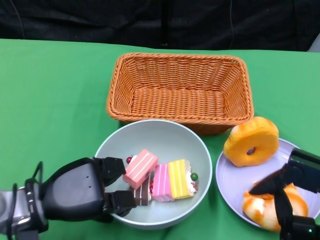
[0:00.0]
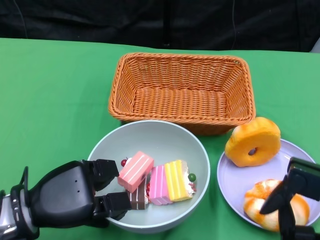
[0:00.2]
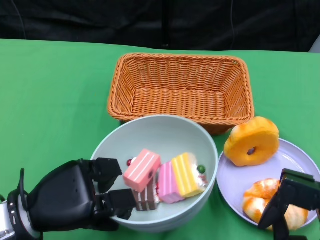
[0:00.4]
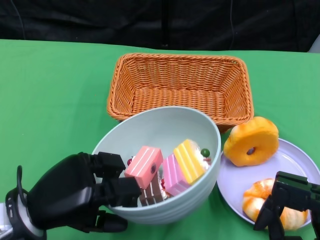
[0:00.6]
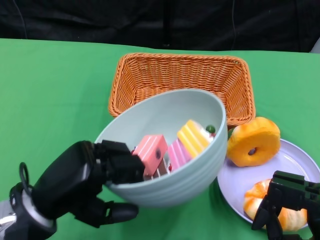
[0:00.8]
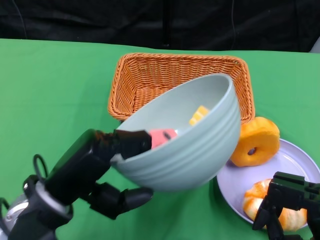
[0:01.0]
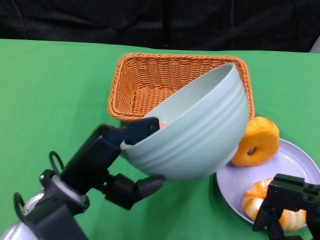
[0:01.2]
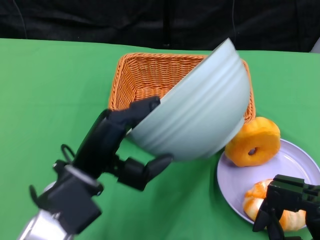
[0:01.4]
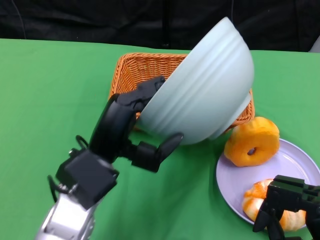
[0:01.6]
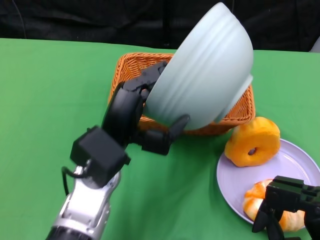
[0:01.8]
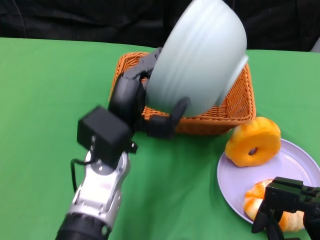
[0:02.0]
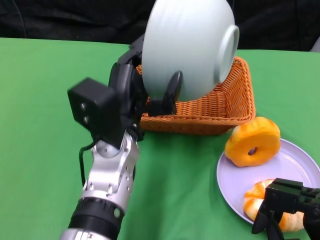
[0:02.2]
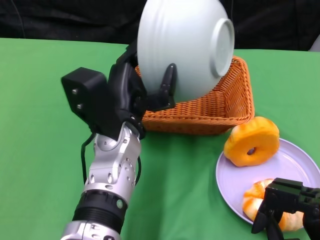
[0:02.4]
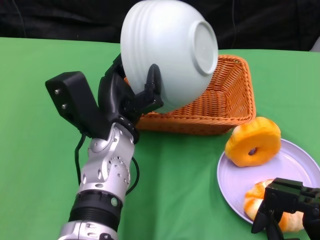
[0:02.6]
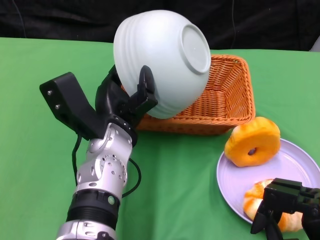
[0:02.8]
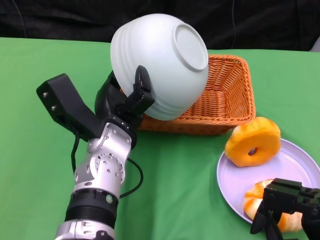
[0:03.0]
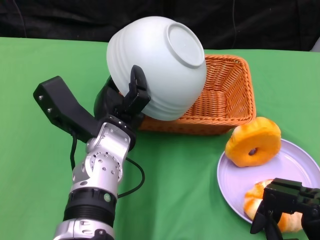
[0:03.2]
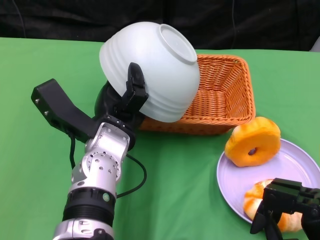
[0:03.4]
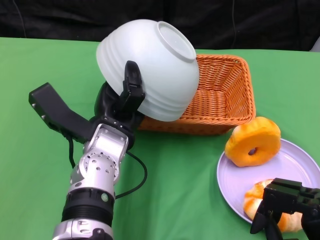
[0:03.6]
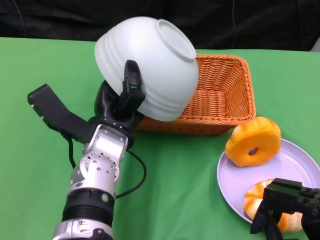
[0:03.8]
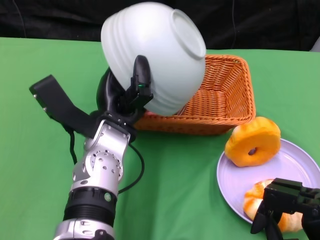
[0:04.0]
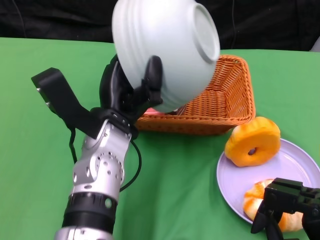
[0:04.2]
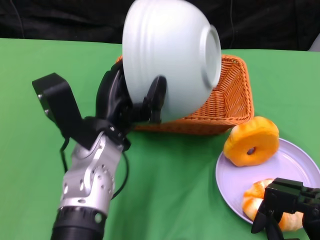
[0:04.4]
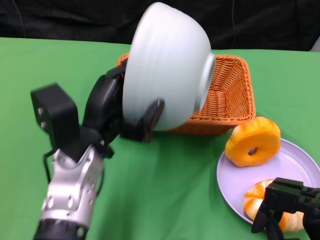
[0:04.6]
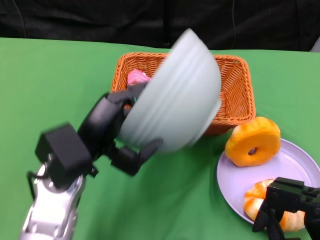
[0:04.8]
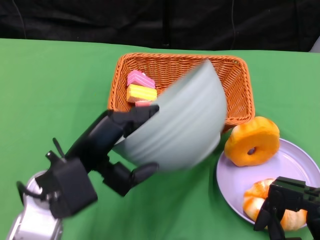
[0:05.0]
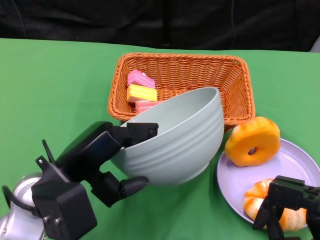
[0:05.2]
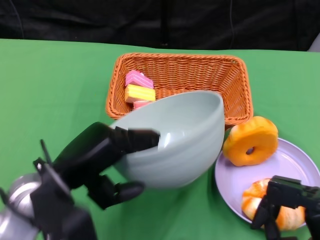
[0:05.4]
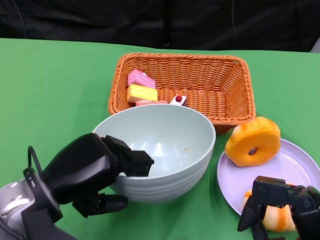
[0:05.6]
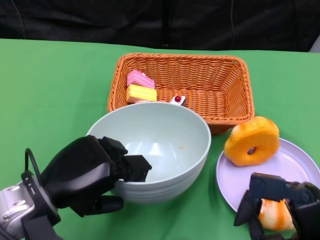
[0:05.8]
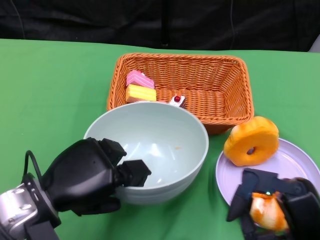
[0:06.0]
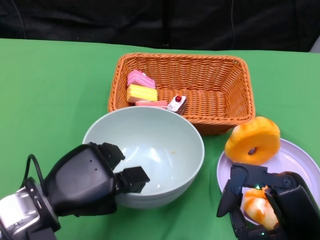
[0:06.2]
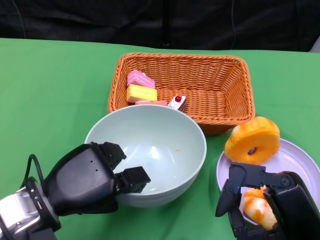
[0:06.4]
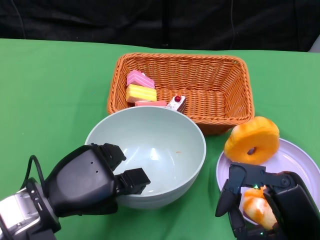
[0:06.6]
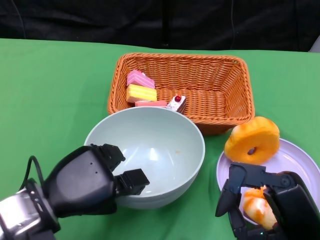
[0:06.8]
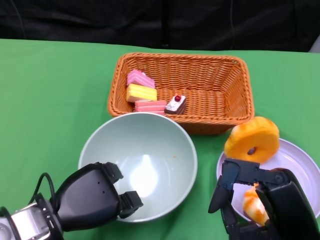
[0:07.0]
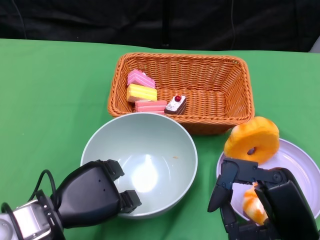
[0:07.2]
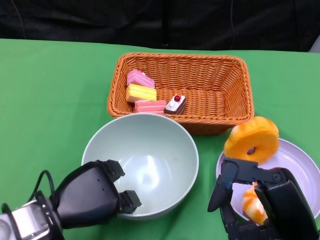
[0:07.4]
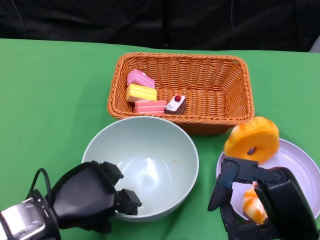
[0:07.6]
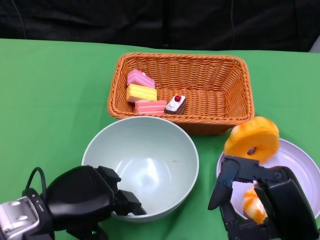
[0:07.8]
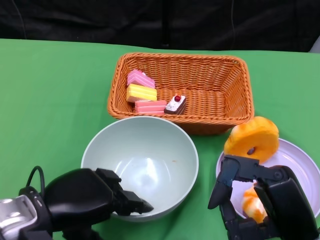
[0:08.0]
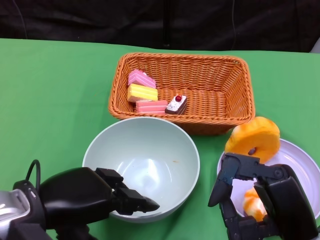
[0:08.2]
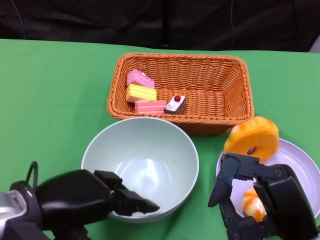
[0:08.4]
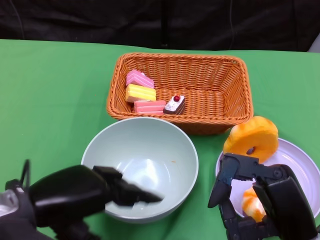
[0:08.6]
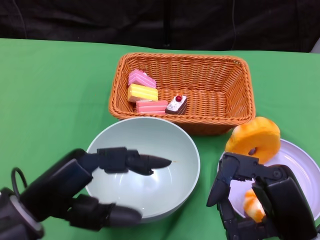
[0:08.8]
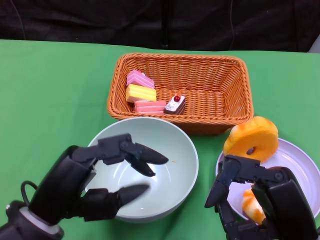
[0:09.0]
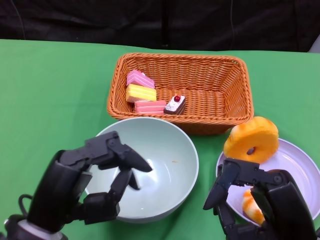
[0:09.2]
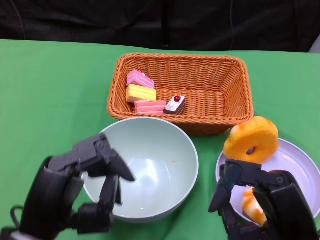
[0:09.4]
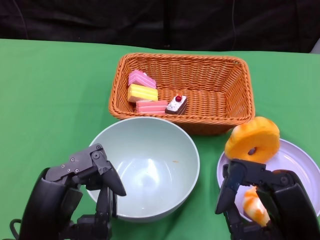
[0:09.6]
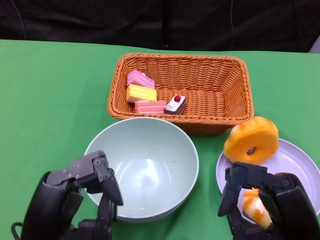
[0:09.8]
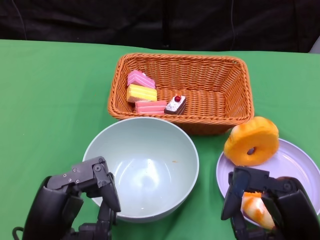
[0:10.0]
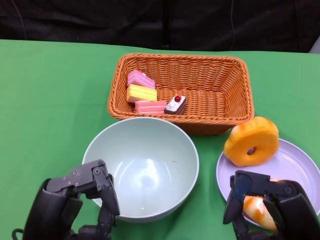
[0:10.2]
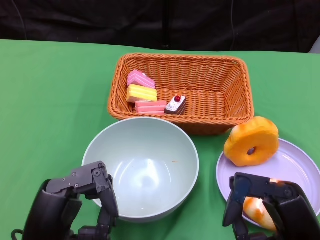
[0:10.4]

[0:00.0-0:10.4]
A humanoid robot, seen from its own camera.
Step, 0:00.2 to 0:03.6: Pour the cake into the basket with the left gripper.
Step, 0:03.8 to 0:08.0: Place the bowl on the table with the left gripper.
0:00.0 to 0:01.4: The left hand goes roughly 10 cm to the right and upward.
0:01.4 to 0:03.0: The left hand shifts some 10 cm forward and to the right.
0:04.4 to 0:06.0: The left hand travels to the left and backward by some 10 cm.
0:07.4 to 0:09.0: The left hand heads upward, covering some 5 cm.
0:09.0 to 0:10.4: The left hand moves about 5 cm.

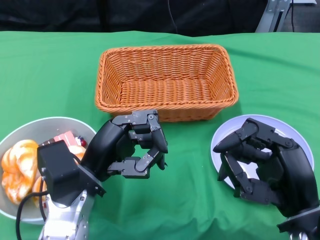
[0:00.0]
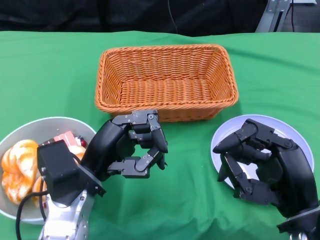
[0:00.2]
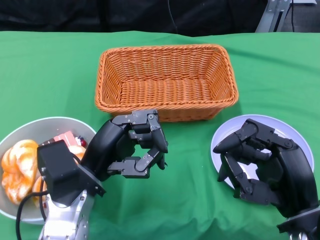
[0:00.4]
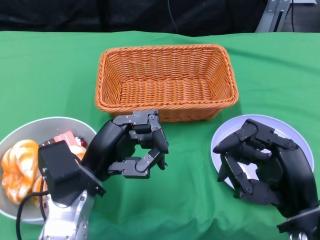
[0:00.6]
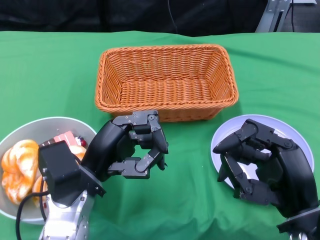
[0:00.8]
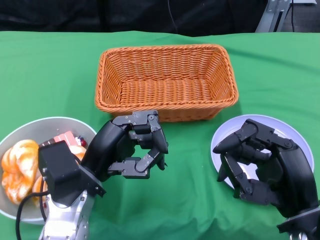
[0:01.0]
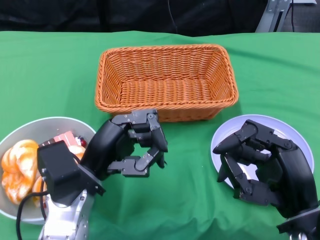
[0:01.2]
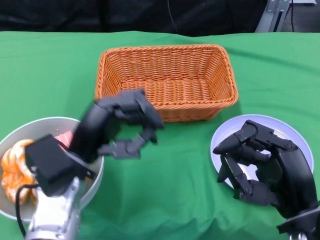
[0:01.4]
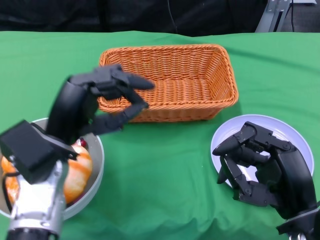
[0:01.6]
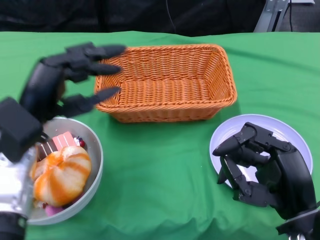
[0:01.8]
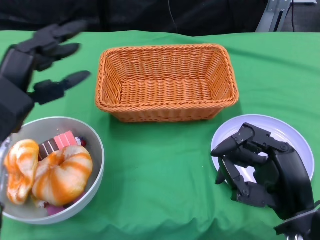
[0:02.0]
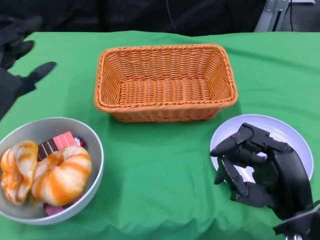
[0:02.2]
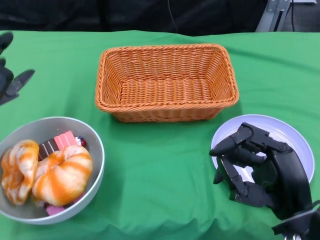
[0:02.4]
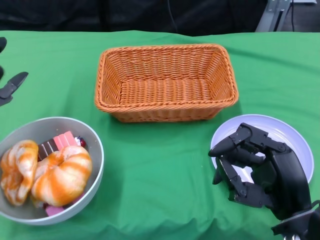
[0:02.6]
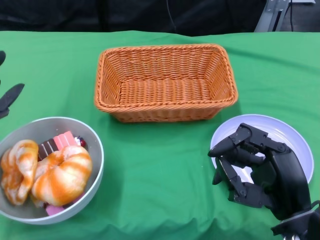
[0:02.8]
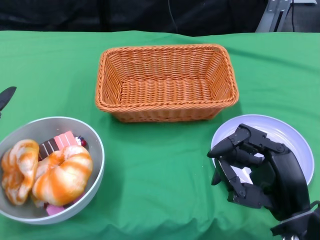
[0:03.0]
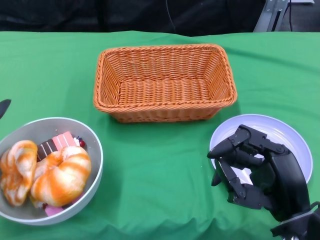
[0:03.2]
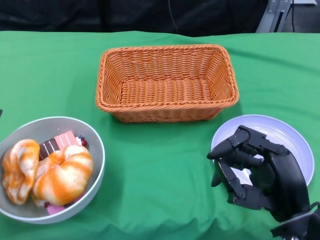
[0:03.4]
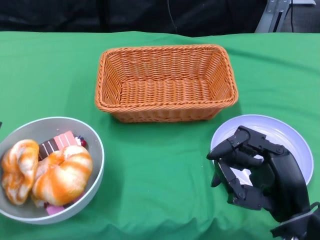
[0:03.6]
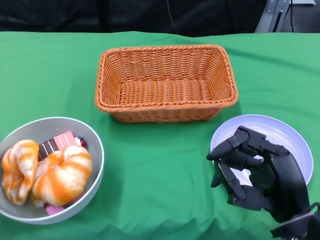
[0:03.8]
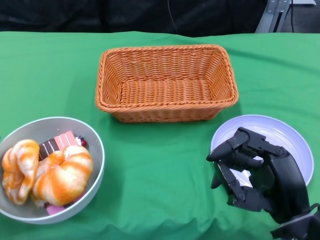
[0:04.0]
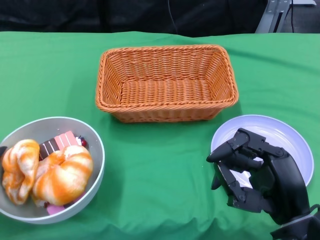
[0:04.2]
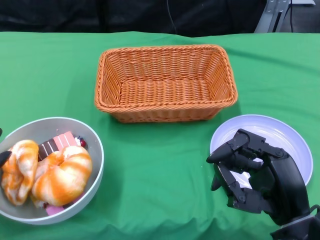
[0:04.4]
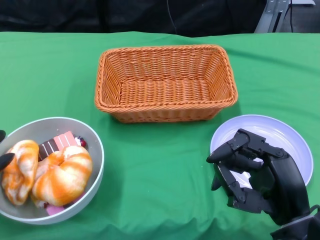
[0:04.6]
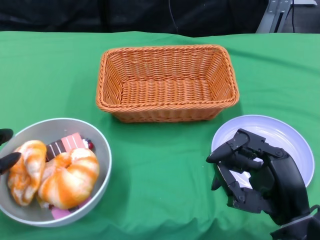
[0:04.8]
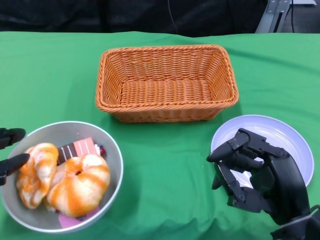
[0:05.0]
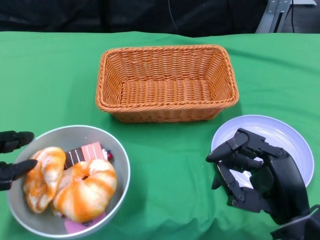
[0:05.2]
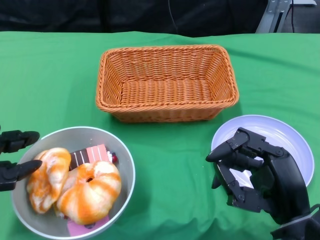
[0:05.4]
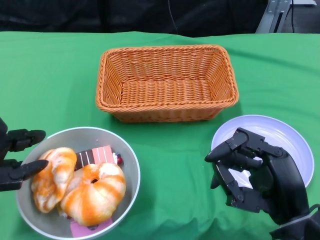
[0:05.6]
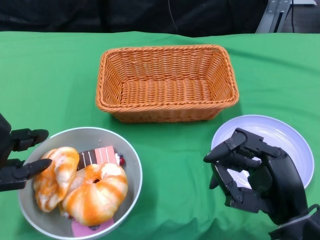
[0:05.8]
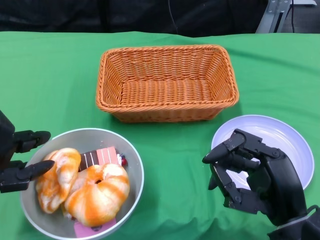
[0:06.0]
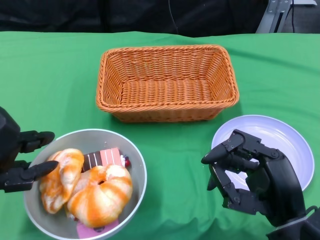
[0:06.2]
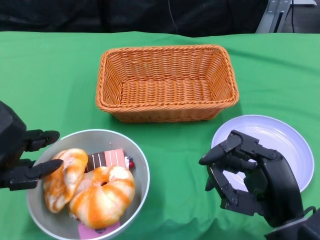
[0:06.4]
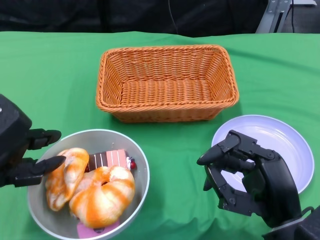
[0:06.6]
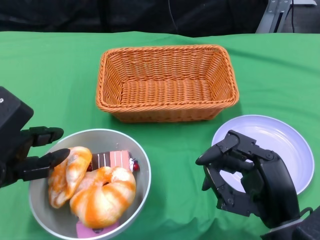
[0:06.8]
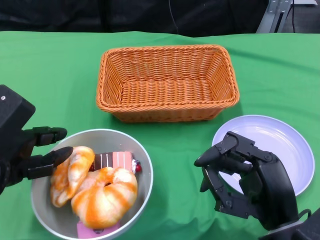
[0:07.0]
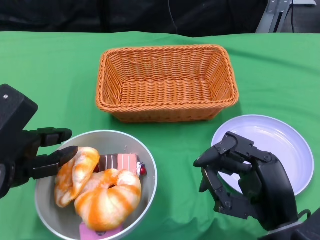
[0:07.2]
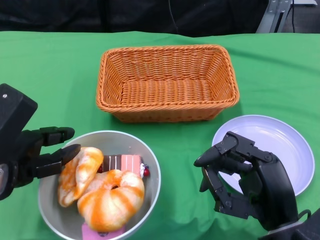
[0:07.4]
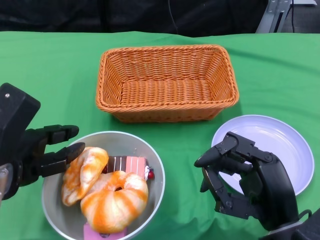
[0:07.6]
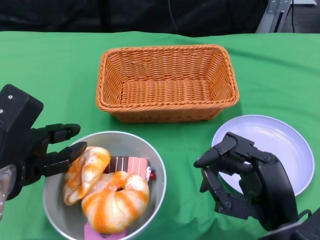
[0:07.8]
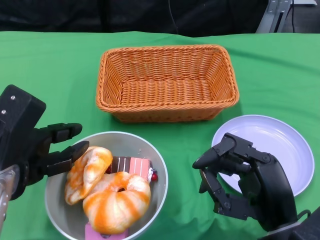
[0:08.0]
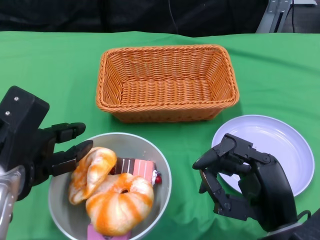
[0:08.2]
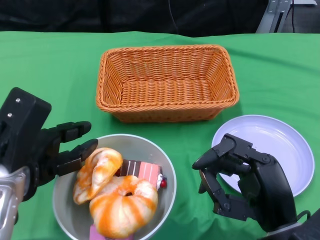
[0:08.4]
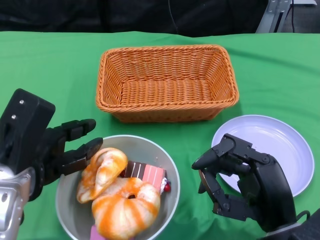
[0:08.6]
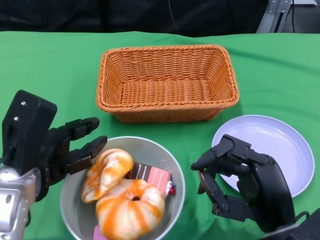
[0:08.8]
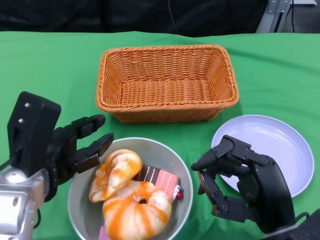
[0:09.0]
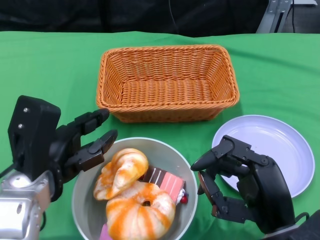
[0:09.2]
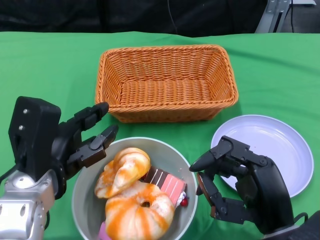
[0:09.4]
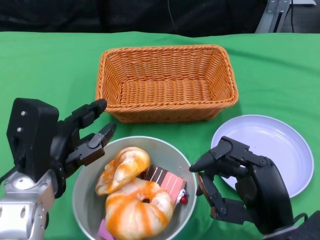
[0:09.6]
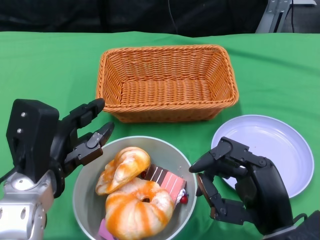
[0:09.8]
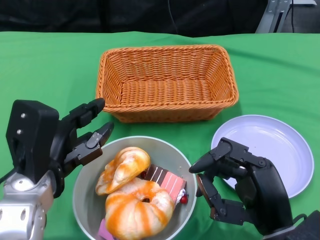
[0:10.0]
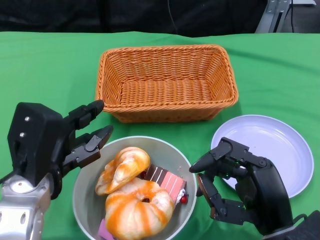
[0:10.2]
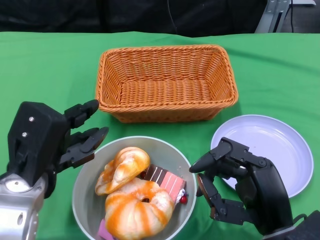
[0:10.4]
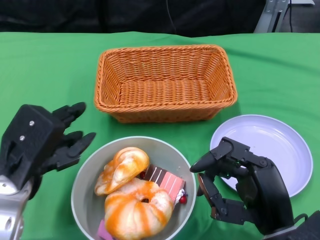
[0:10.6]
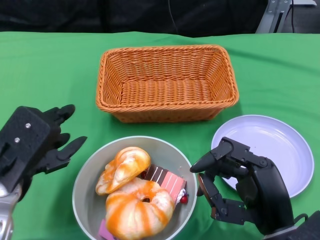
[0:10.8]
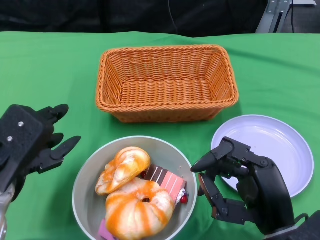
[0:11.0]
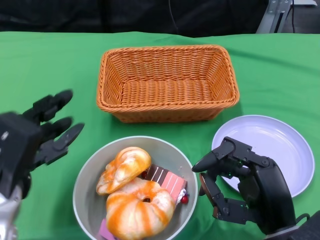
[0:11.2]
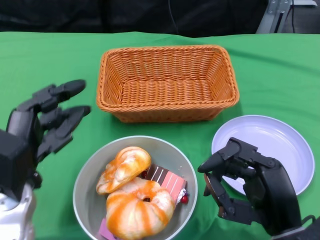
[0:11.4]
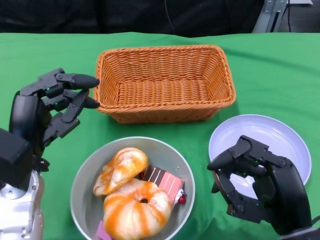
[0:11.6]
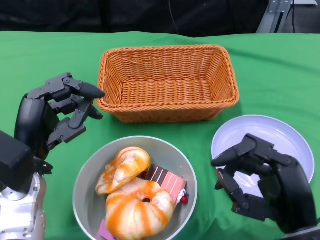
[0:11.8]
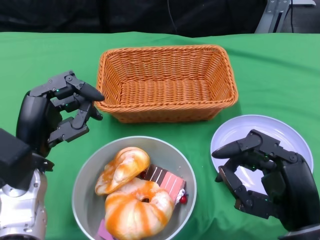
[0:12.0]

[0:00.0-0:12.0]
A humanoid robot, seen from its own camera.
Step, 0:00.0 to 0:11.0: Push the bowl to the center of the table using the left gripper.
0:01.6 to 0:03.0: The left hand is displaced to the left by approximately 15 cm.
0:03.0 to 0:04.4: The left hand ends up roughly 5 cm from where it was.
0:06.0 to 0:07.6: The left hand changes place by roughly 5 cm.
0:09.0 to 0:10.4: The hands move only a little.
